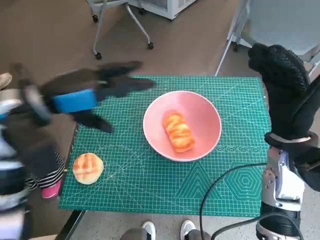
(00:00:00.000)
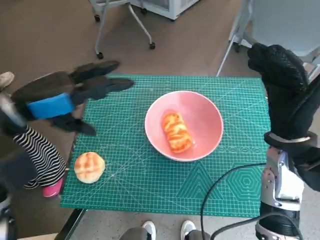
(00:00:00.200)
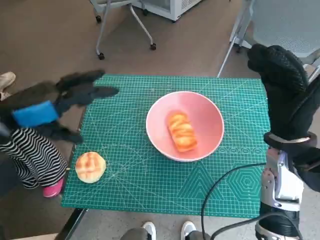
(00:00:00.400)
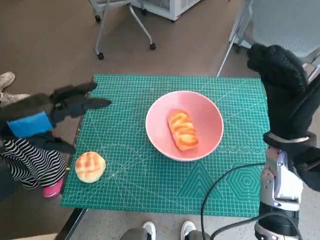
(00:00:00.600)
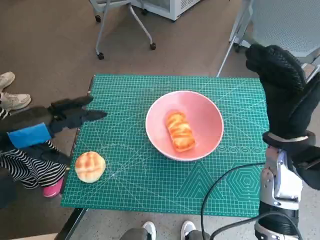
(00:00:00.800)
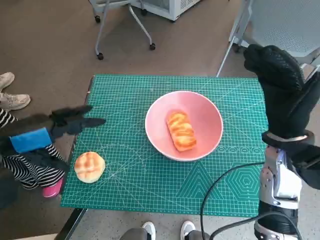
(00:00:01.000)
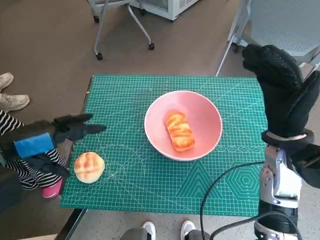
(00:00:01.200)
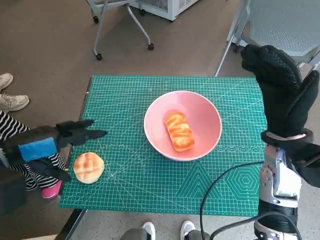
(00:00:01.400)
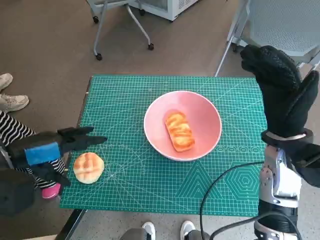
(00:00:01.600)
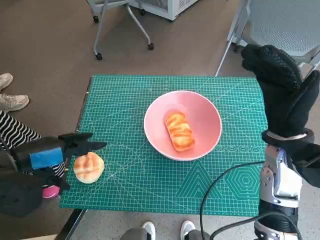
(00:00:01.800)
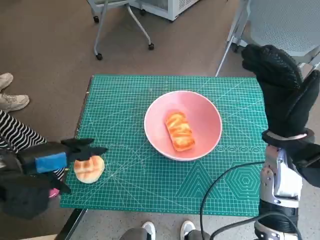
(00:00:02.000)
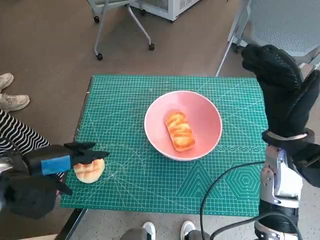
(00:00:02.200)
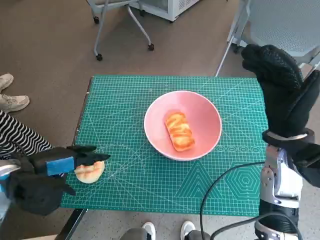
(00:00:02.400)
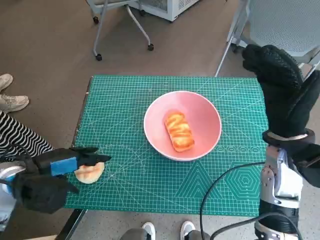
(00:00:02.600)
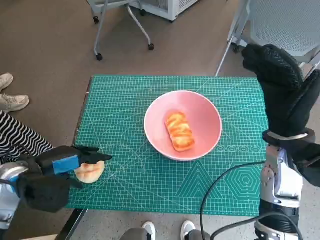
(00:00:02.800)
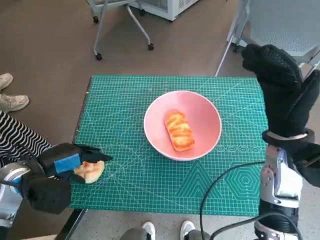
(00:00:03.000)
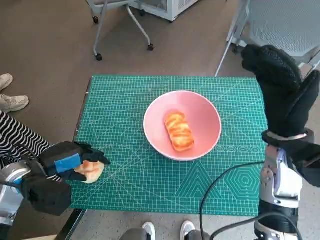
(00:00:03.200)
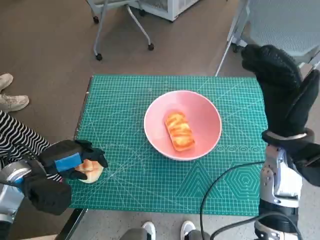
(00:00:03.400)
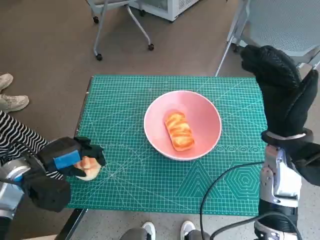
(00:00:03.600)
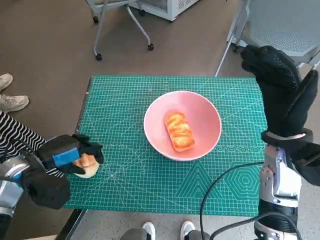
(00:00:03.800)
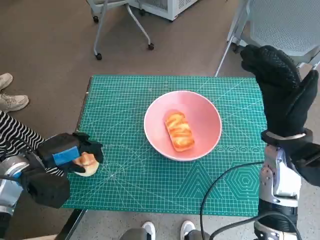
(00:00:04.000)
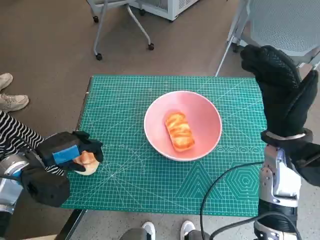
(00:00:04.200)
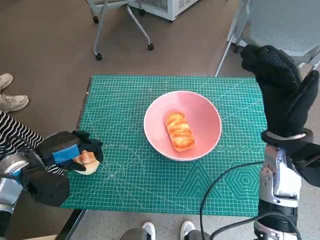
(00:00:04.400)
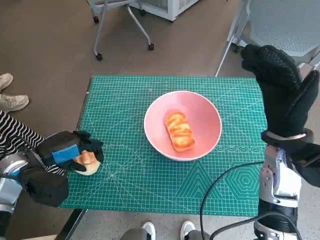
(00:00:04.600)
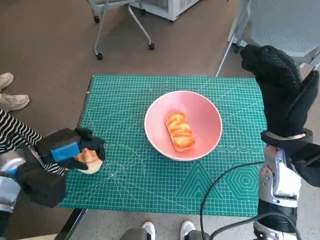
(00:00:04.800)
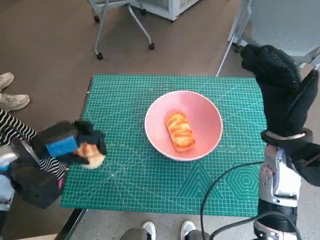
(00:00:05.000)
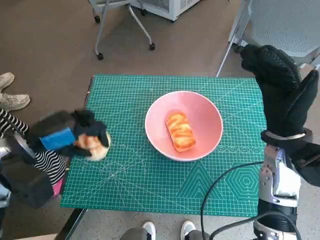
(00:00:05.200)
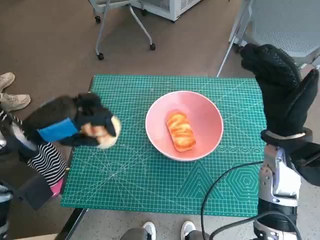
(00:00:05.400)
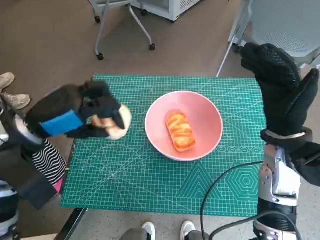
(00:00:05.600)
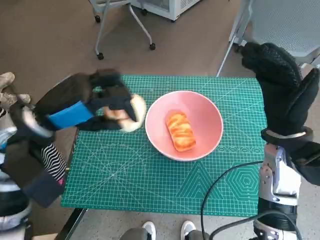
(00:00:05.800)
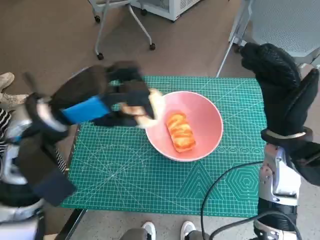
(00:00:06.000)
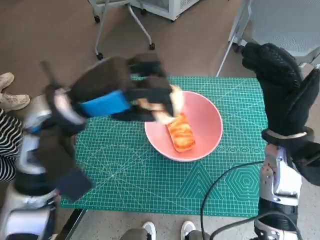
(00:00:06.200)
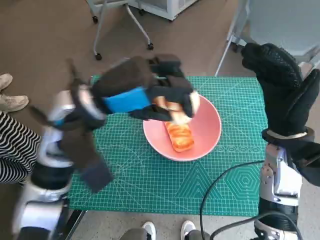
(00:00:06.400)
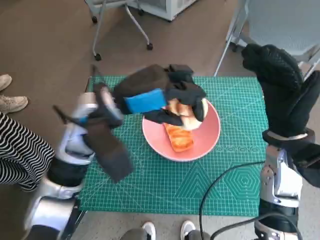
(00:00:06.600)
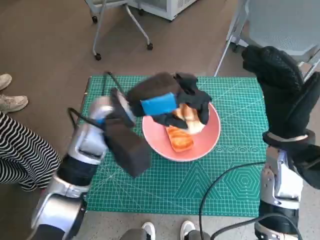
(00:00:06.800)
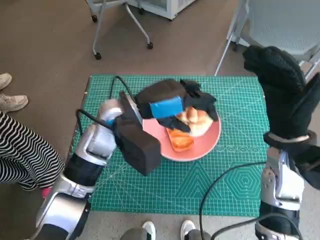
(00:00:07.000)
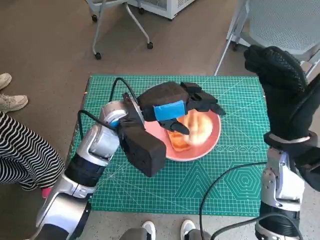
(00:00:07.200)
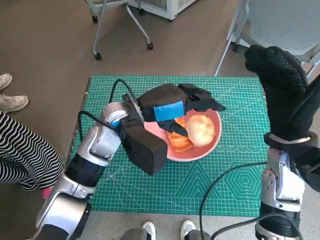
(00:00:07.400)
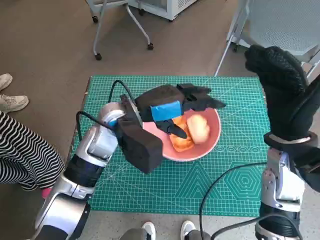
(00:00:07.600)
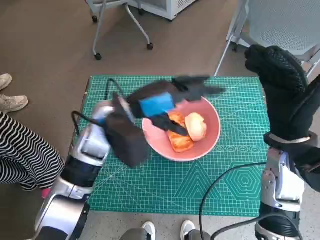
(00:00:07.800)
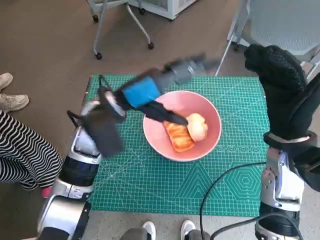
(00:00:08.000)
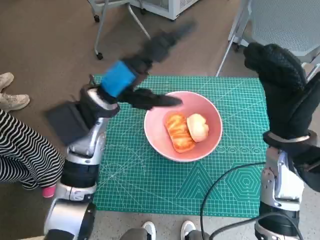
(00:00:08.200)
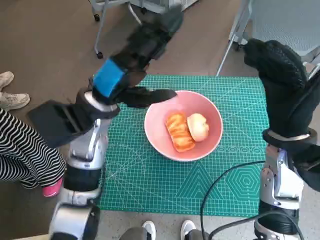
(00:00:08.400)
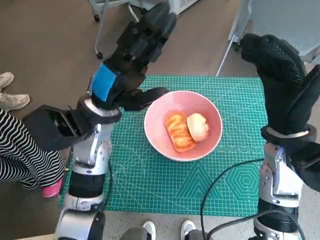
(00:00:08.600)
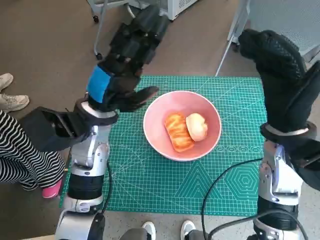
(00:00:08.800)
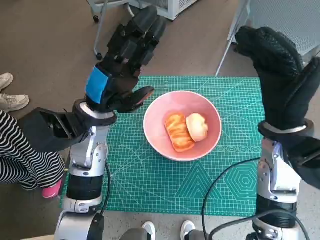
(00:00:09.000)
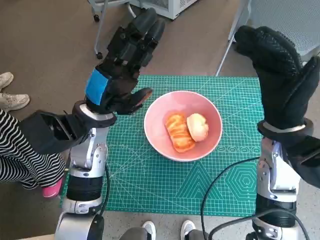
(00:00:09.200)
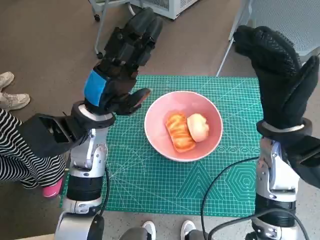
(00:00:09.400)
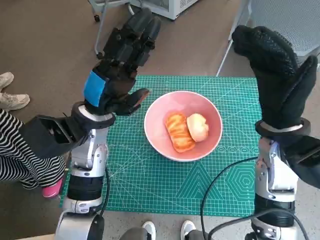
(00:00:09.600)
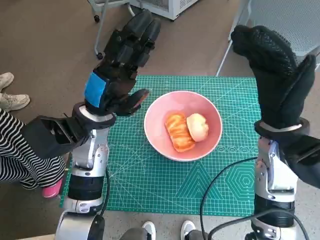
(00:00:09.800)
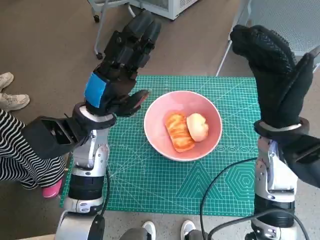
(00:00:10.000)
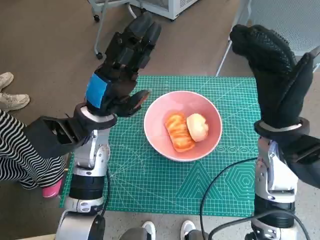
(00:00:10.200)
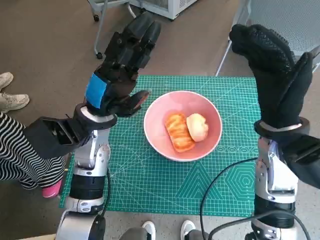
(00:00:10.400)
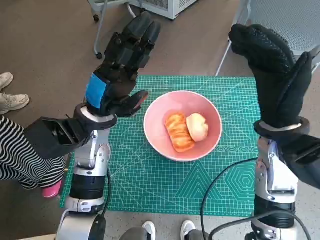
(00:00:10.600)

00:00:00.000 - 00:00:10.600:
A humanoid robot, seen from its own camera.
Task of the whole recording: Push the bowl into the center of the table and put the bread into the bowl.
Step, 00:00:00.000 - 00:00:03.400: Grasp the round bread with left hand.
Step, 00:00:03.600 - 00:00:07.600: Place the round bread in pink bowl with left hand.
00:00:00.000 - 00:00:01.600: The left hand travels to the left, backward and downward by some 10 cm.
00:00:01.600 - 00:00:03.000: The left hand shifts approximately 10 cm downward.
00:00:03.000 - 00:00:04.600: The hands move only a little.
00:00:04.600 - 00:00:06.000: The left hand moves upward and to the right, about 15 cm.
00:00:06.000 - 00:00:07.600: The left hand heads to the right, downward and forward, covering some 15 cm.
00:00:07.600 - 00:00:09.000: The left hand ends up approximately 5 cm from where it was.
00:00:09.000 - 00:00:10.600: There are only small adjustments of the hands.

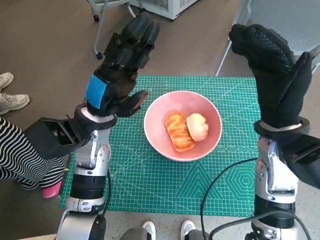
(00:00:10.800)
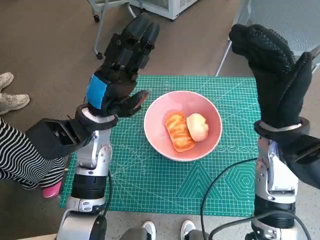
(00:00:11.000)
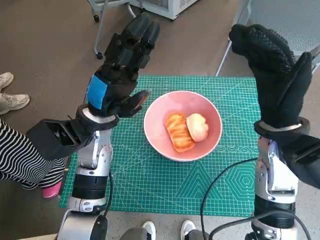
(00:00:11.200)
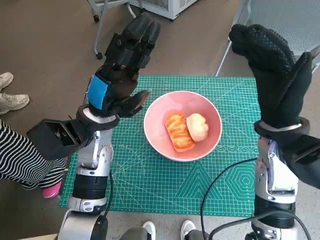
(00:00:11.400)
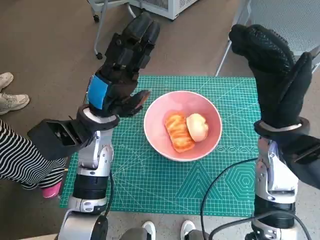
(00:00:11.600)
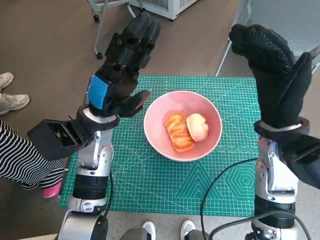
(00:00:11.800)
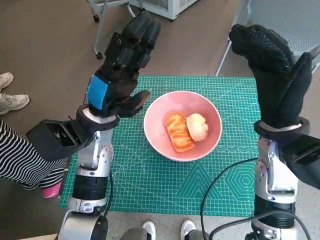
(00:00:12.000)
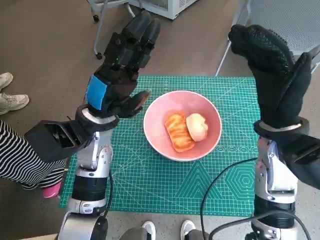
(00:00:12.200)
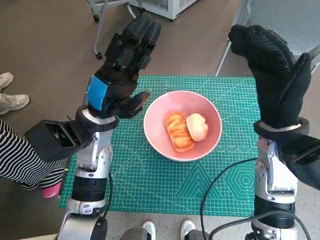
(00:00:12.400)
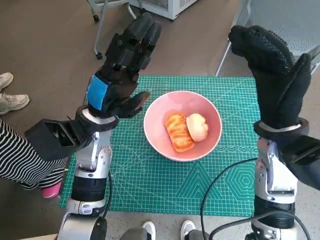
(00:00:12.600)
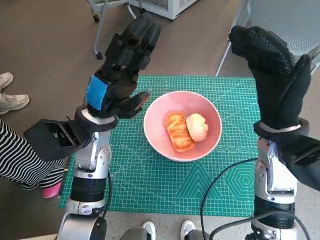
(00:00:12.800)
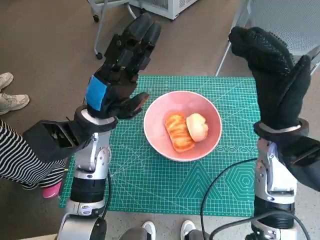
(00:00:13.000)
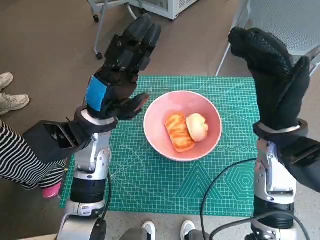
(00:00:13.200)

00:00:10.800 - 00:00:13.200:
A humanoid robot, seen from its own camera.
Task of the whole recording: Push the bowl into the center of the table and put the bread into the bowl.
00:00:10.800 - 00:00:13.200: Both hands stay about where they are.
